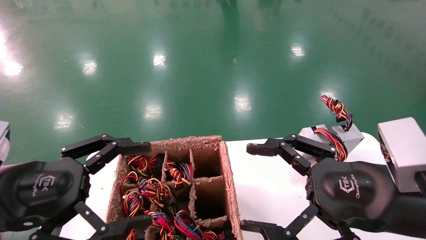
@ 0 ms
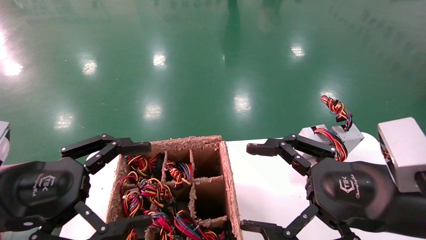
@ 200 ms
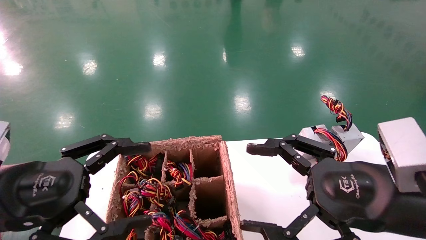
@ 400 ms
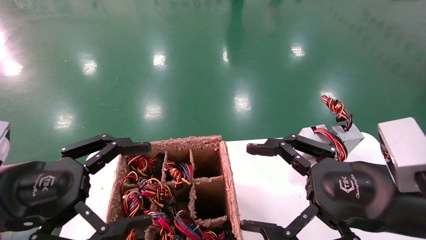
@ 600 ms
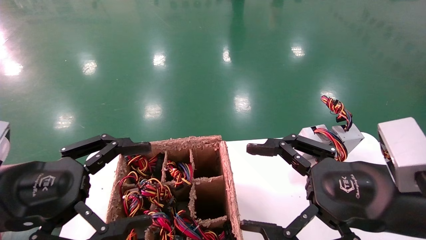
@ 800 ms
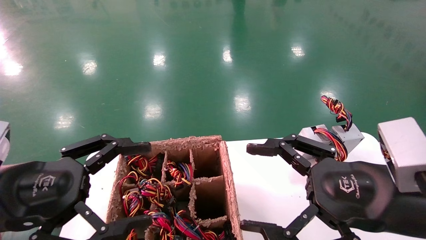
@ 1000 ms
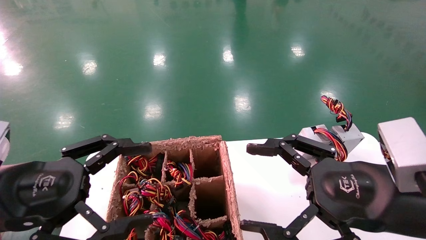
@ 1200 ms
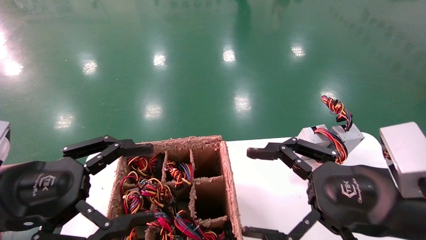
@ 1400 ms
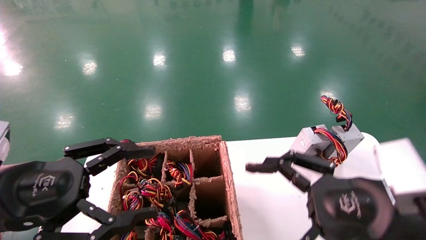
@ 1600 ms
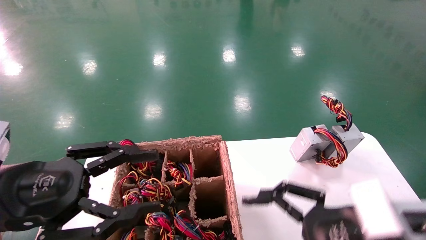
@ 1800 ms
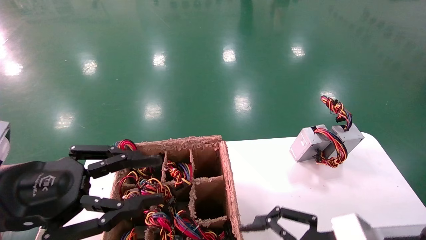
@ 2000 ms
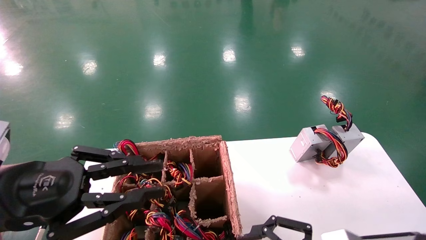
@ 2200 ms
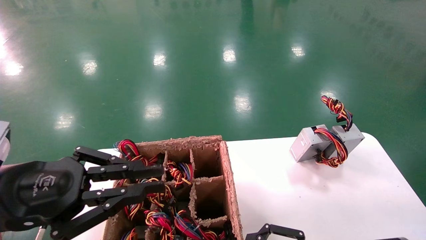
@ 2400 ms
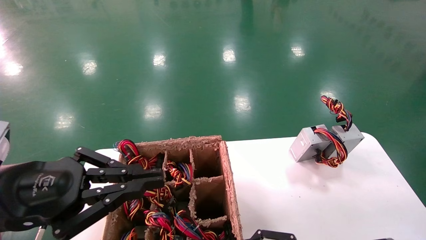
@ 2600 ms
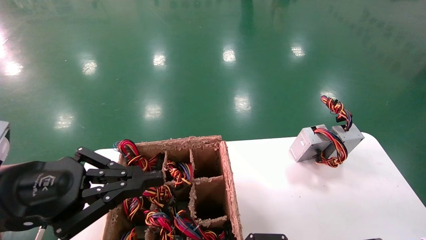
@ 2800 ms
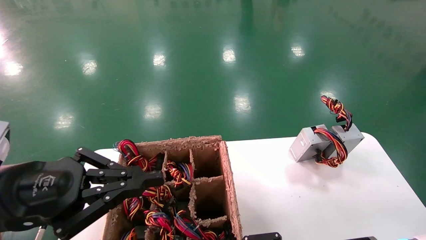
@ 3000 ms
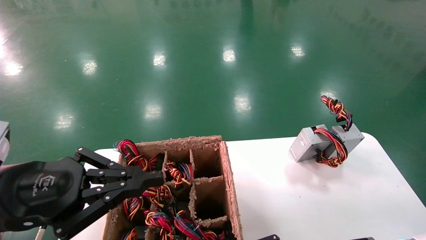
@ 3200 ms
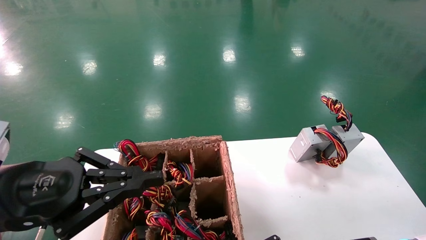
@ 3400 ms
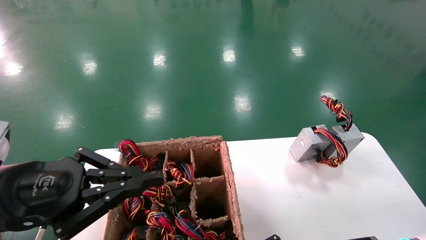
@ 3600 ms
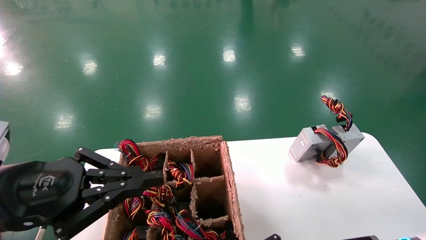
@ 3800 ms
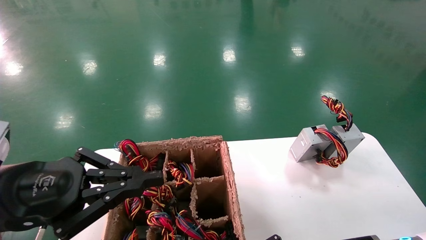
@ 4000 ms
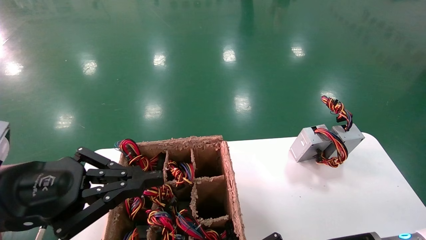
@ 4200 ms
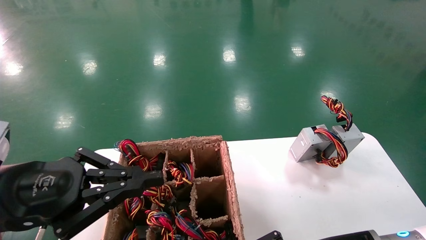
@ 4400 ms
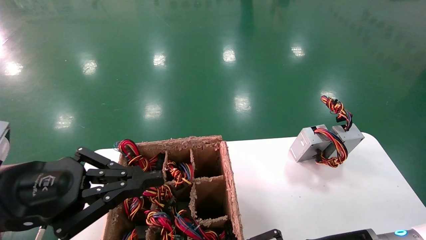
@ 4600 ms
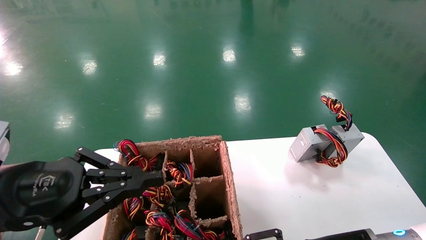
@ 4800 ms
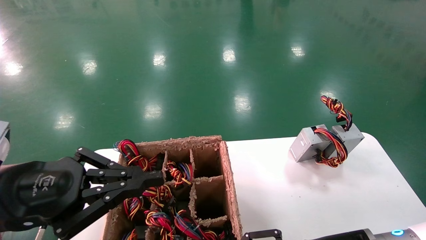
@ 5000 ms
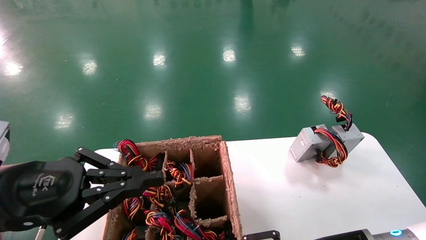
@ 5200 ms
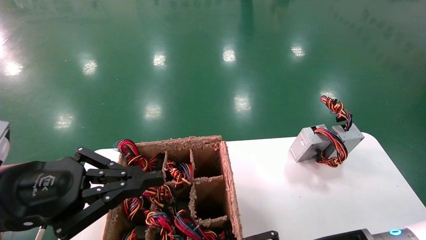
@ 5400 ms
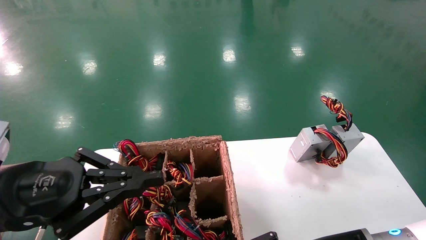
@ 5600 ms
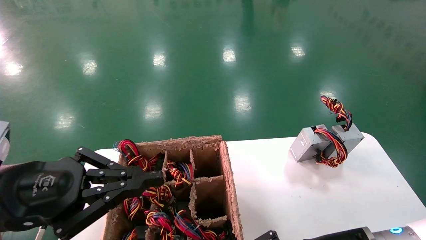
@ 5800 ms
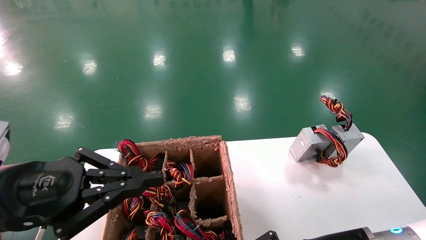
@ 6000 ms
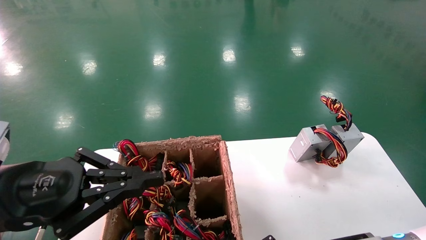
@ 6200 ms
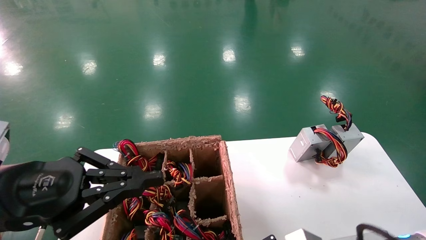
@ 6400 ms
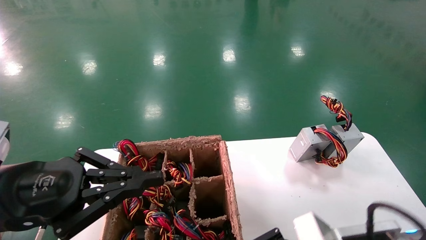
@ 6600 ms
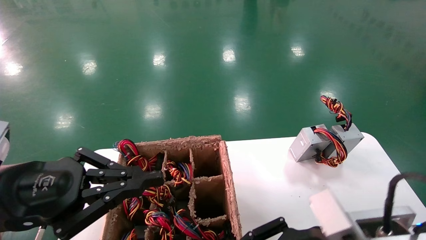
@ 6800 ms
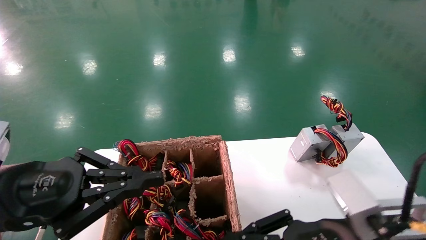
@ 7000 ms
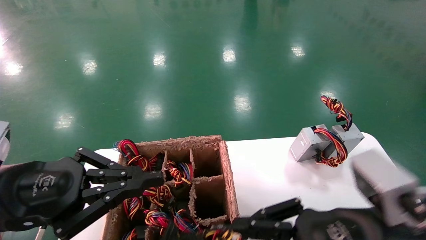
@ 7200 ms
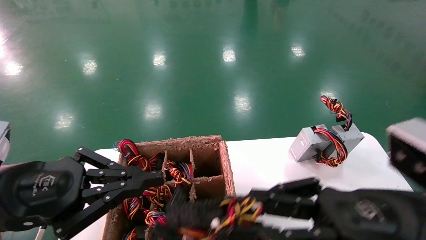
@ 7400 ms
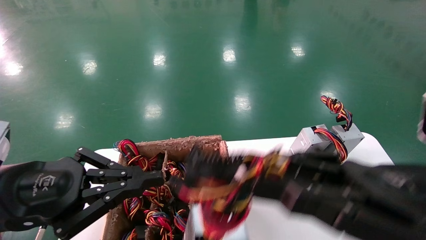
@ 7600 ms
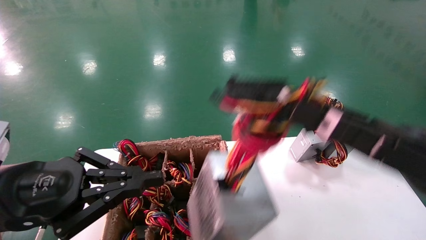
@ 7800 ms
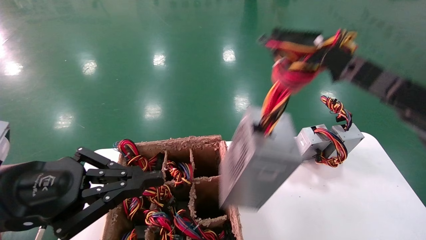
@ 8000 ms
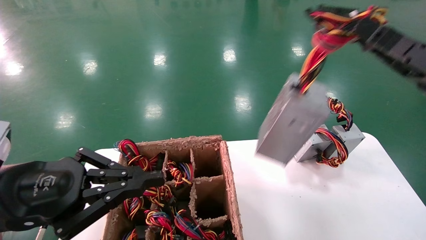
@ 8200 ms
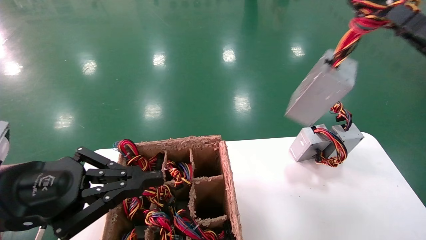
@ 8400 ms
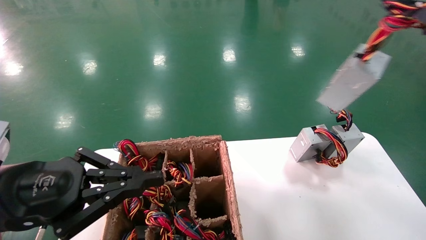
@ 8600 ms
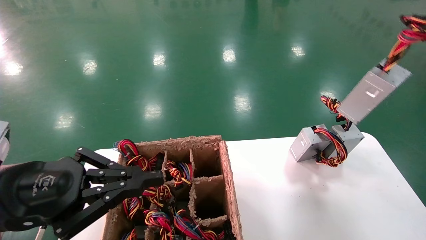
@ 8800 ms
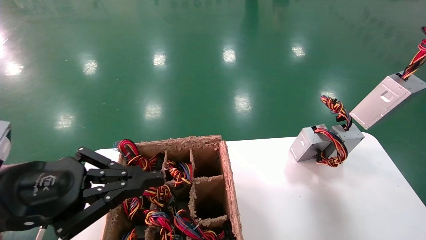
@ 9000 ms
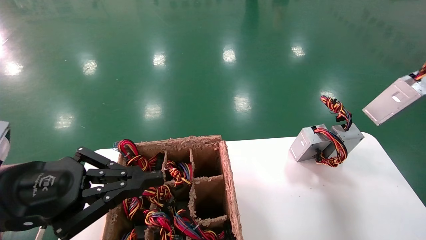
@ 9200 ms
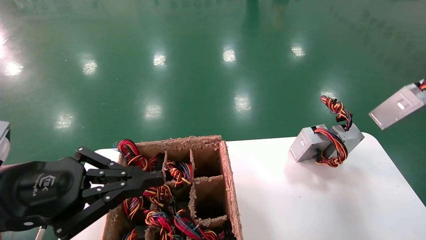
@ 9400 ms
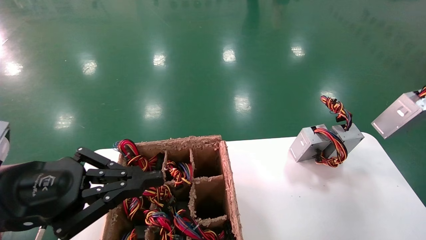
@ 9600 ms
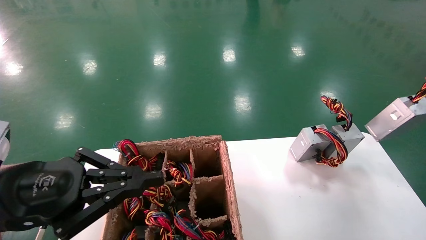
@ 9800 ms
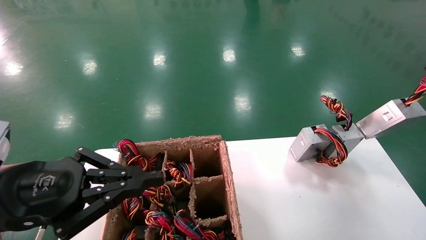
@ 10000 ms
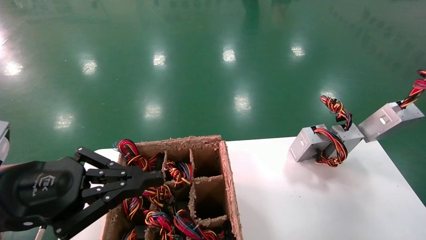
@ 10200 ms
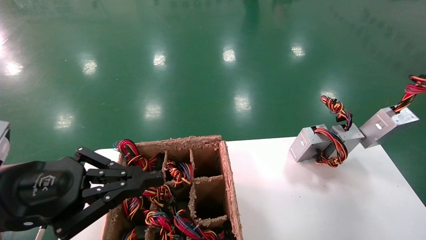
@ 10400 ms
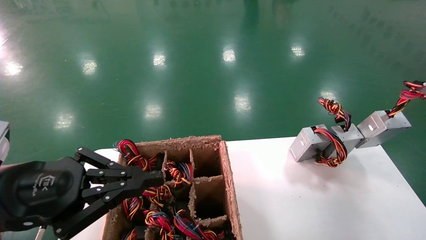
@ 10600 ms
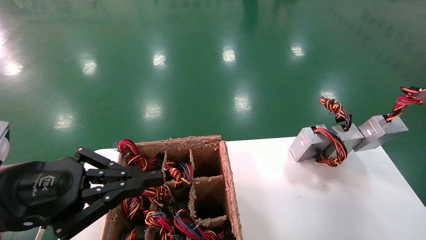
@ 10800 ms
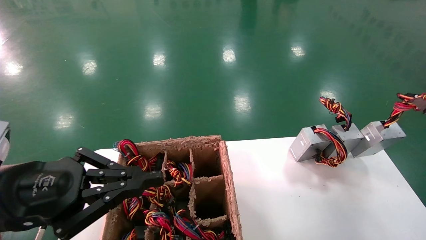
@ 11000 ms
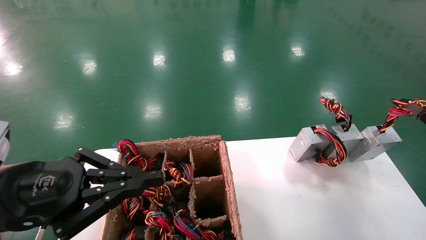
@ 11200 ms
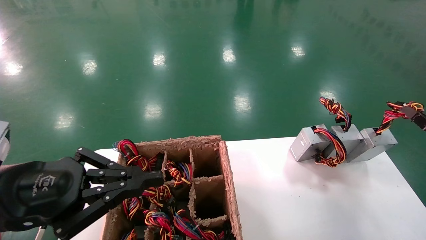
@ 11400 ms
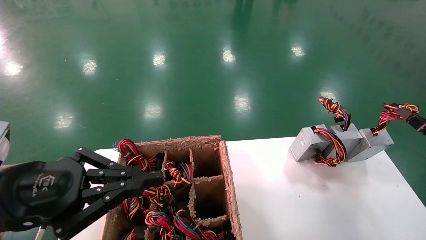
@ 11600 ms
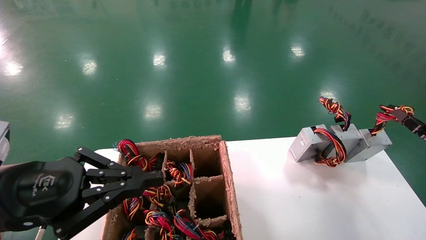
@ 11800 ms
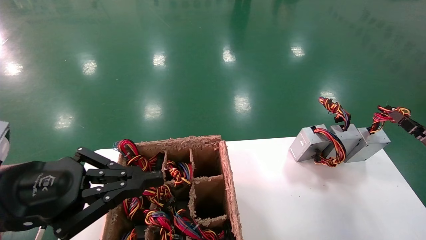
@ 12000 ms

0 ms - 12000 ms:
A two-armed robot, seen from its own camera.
Step, 1800 ms - 6200 ms: Grab the main unit power supply from the containment box.
0 ms - 1600 ms: The grippers stay close to where they were, moving slightly.
1600 ms - 3000 ms: The left gripper closes its fingers. The right gripper travels downward by roughly 10 cm.
3000 ms - 4400 ms: The right gripper closes.
4400 ms - 6000 ms: The right gripper opens, then closes again.
6000 ms - 7600 ms: The right gripper is displaced upward and to the right by about 10 cm.
7600 ms - 9000 ms: The right gripper shifts some 25 cm to the right.
9000 ms - 10400 ms: The right gripper is displaced downward by approximately 5 cm.
10400 ms - 12000 ms: The right gripper goes about 5 cm downward.

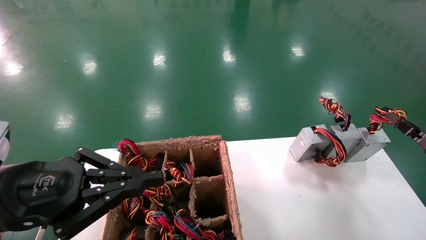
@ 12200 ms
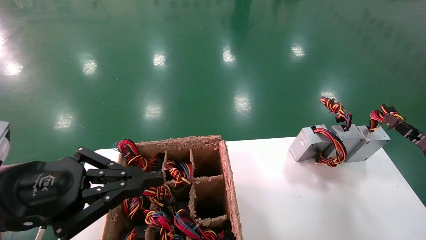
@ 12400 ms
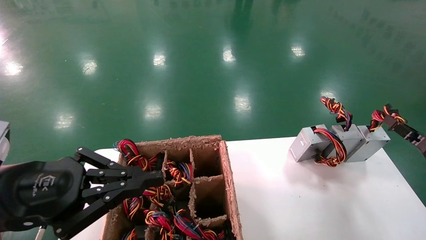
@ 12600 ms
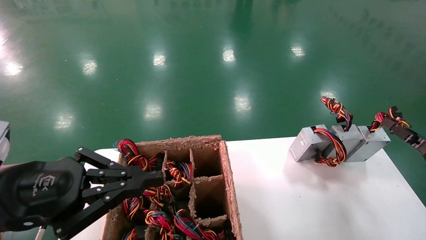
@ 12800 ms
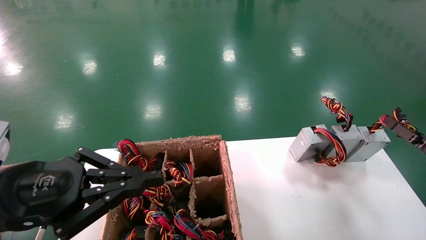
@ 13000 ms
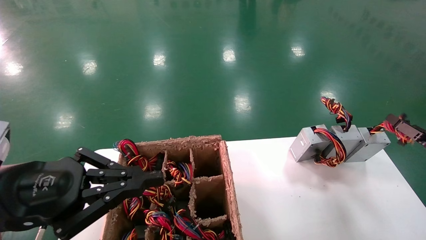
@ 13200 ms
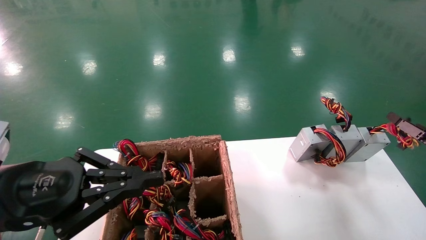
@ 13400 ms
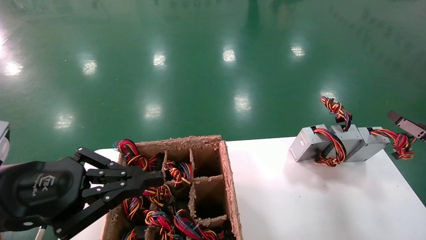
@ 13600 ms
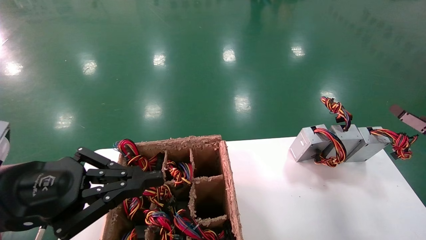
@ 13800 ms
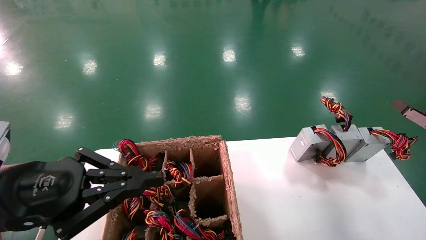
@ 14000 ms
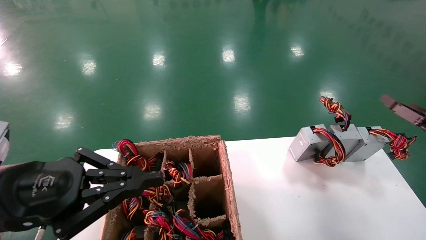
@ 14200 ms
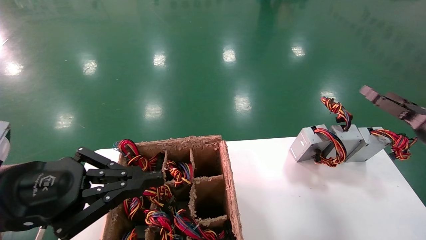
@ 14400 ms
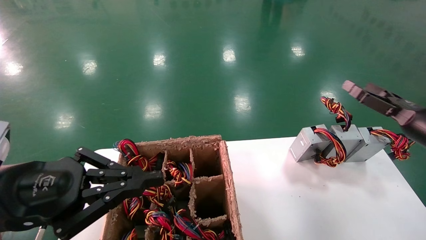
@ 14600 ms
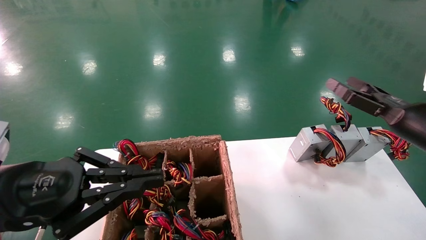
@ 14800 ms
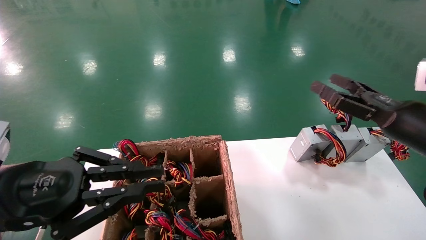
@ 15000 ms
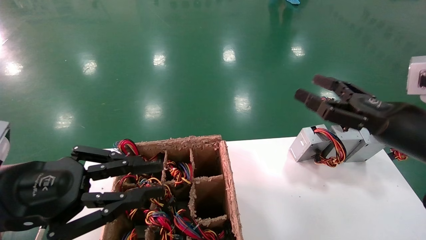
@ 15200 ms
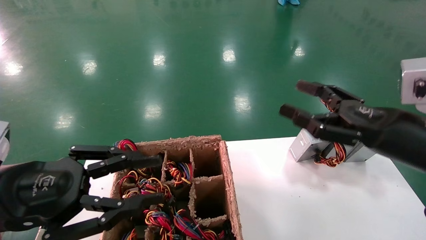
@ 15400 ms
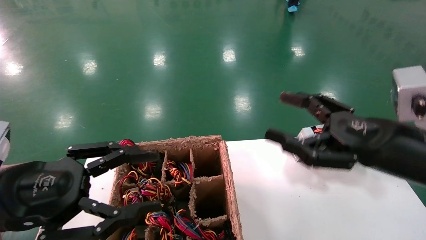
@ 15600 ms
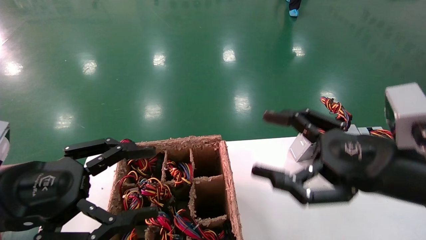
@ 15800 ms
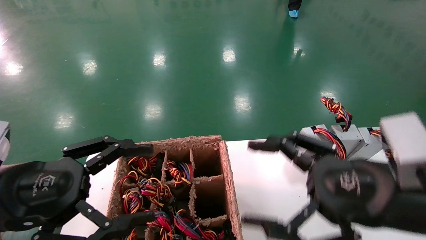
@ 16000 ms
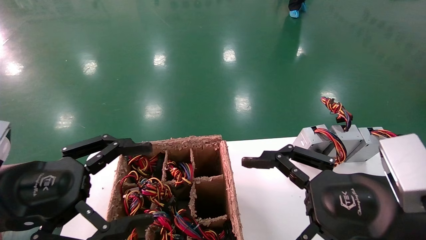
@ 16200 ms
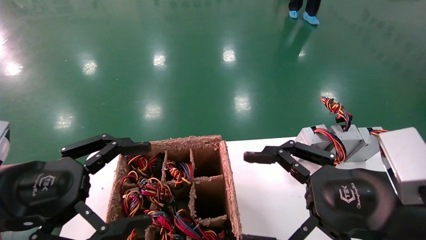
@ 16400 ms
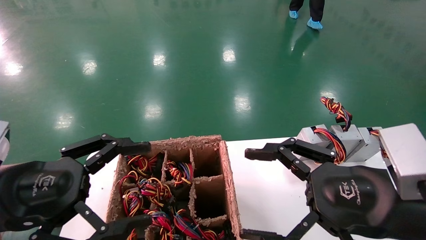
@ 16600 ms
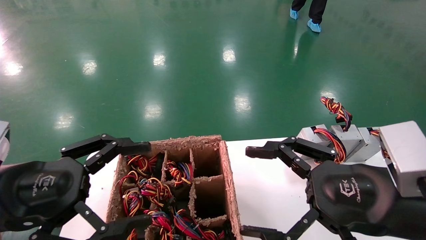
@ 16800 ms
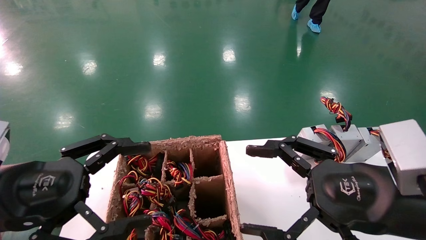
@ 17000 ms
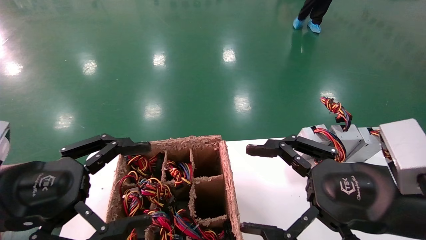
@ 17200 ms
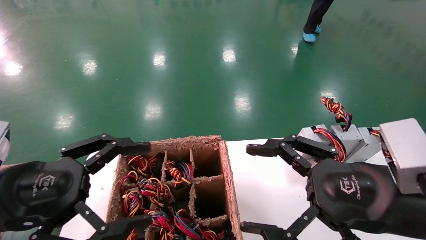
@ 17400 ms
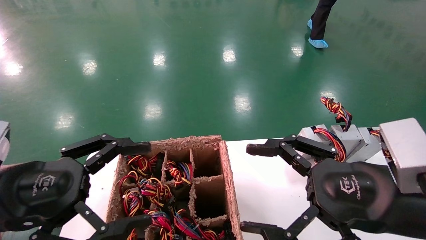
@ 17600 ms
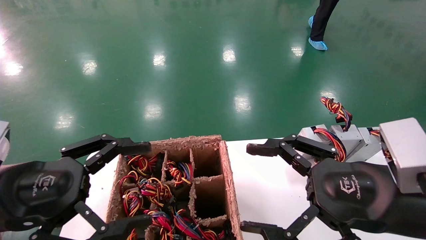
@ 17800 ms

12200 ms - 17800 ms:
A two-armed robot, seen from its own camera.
12200 ms - 13600 ms: The right gripper opens.
13600 ms - 15000 ms: The right gripper travels to the left and upward by approximately 20 cm.
15000 ms - 16400 ms: The right gripper goes about 20 cm to the left and backward, while the left gripper opens.
16400 ms - 17800 ms: Both grippers stay about where they are.
